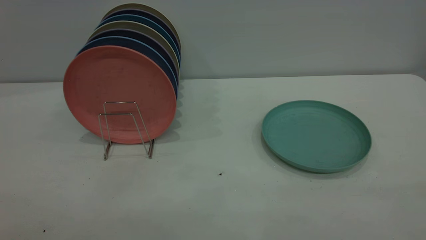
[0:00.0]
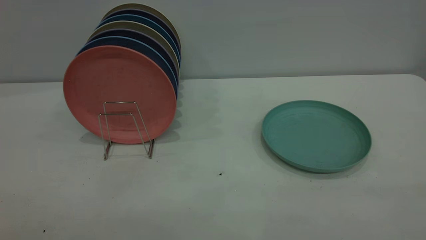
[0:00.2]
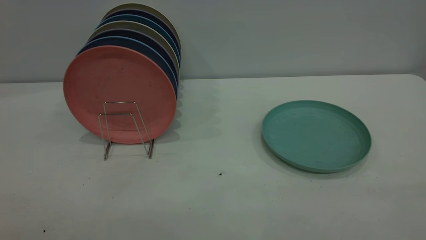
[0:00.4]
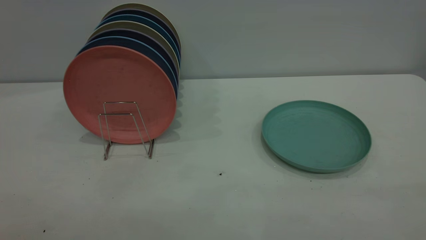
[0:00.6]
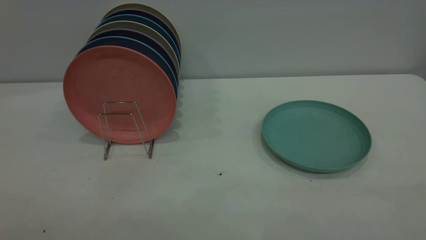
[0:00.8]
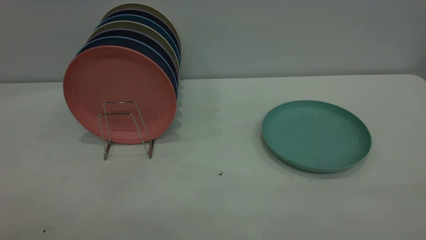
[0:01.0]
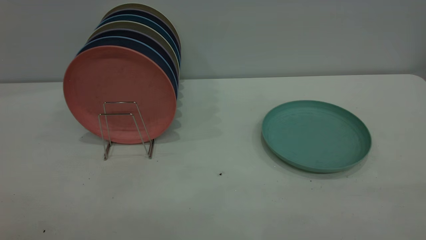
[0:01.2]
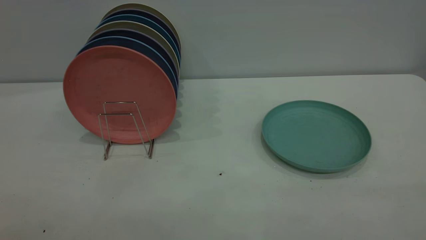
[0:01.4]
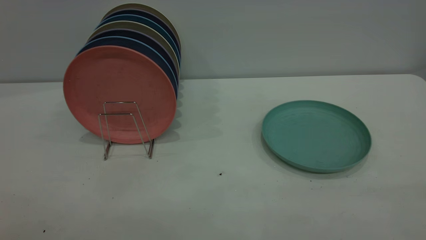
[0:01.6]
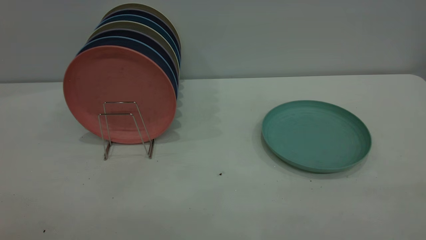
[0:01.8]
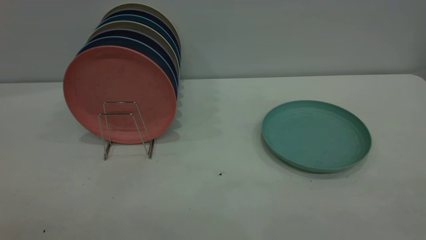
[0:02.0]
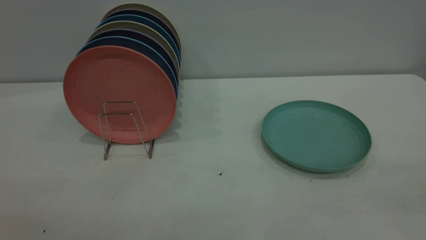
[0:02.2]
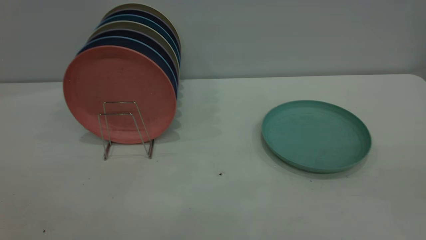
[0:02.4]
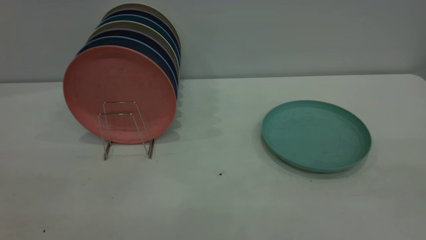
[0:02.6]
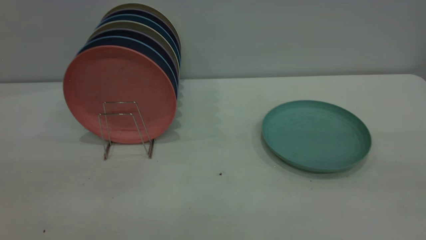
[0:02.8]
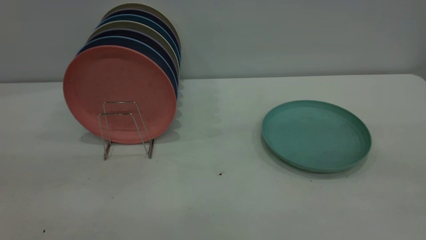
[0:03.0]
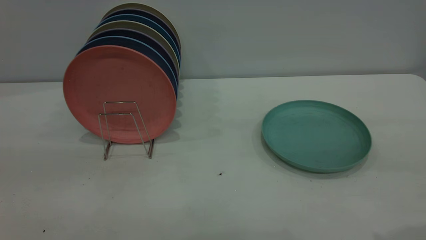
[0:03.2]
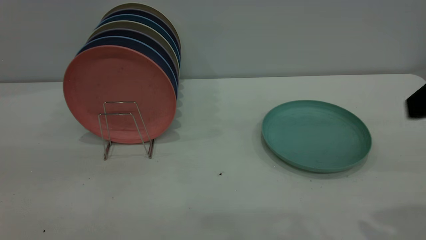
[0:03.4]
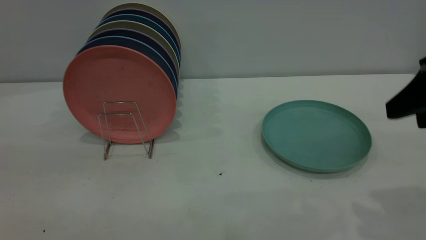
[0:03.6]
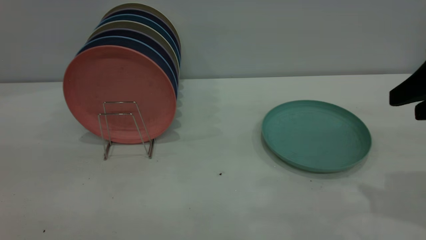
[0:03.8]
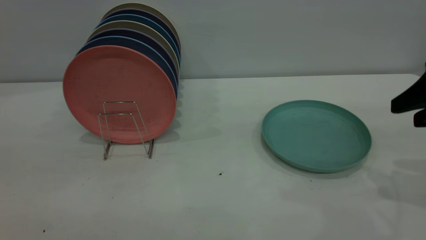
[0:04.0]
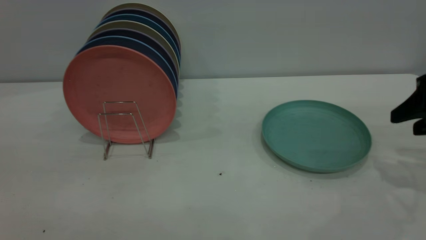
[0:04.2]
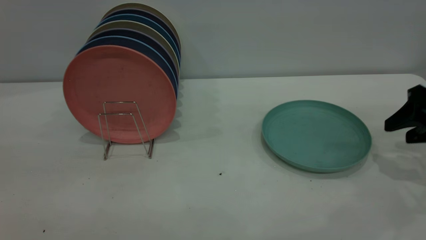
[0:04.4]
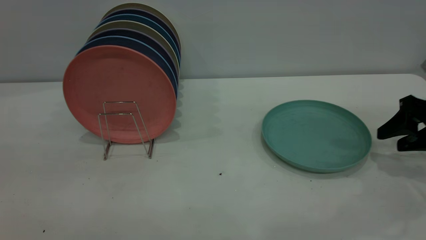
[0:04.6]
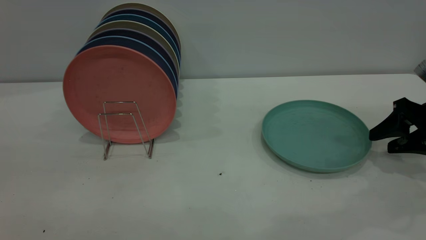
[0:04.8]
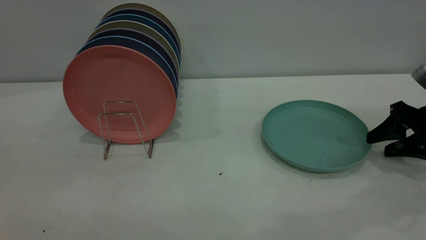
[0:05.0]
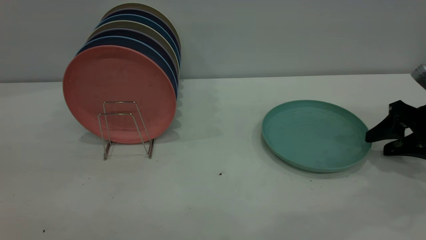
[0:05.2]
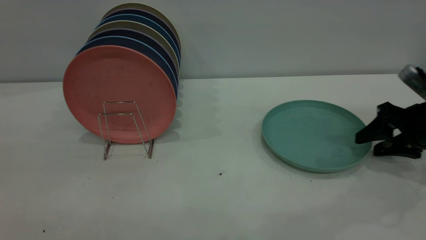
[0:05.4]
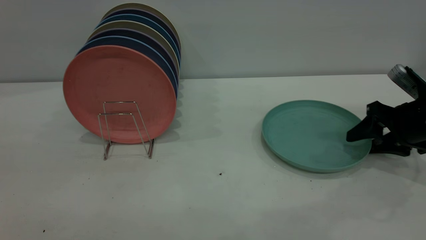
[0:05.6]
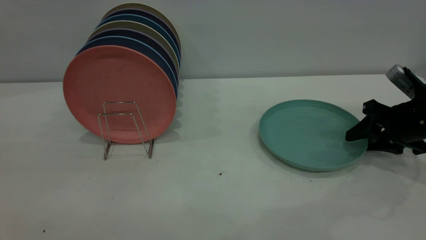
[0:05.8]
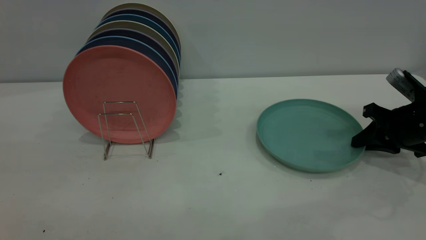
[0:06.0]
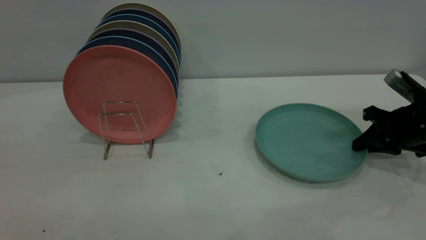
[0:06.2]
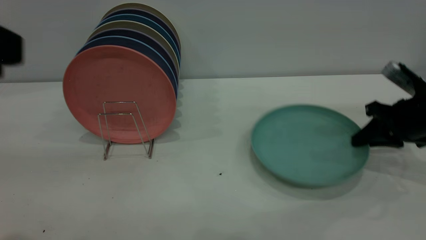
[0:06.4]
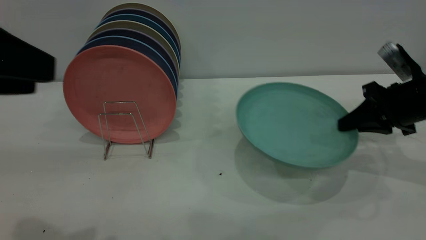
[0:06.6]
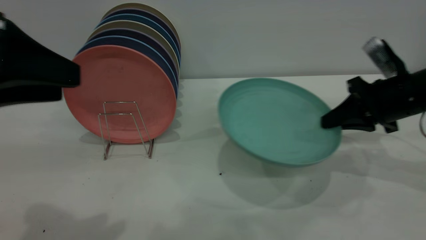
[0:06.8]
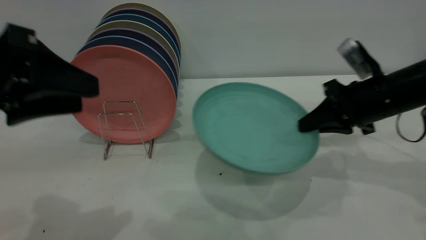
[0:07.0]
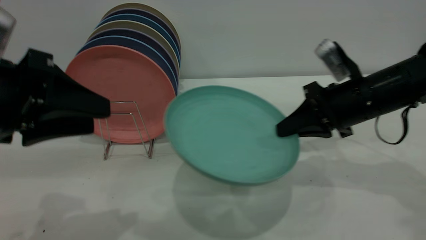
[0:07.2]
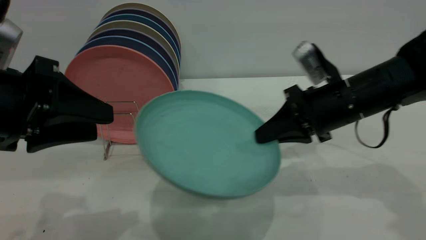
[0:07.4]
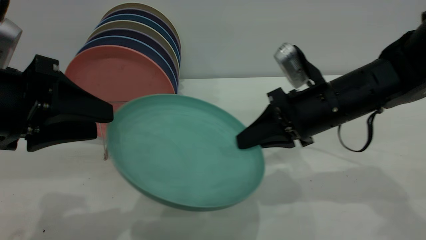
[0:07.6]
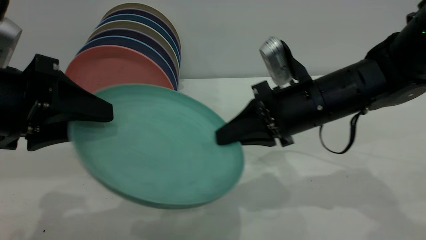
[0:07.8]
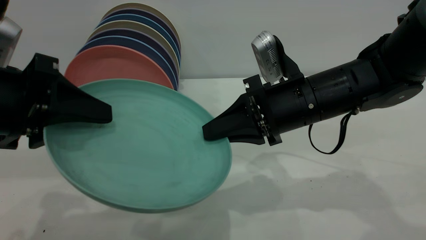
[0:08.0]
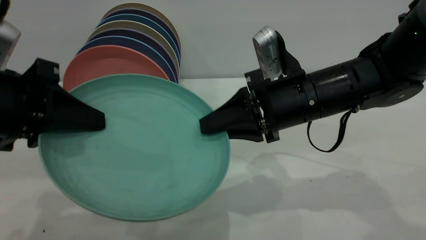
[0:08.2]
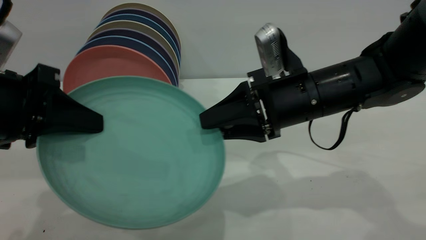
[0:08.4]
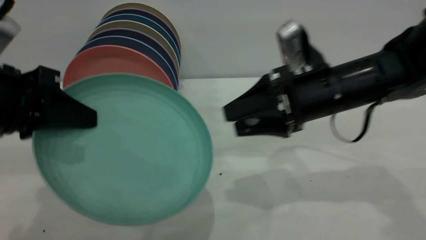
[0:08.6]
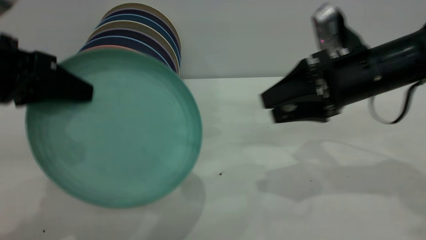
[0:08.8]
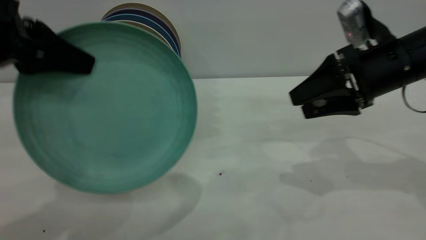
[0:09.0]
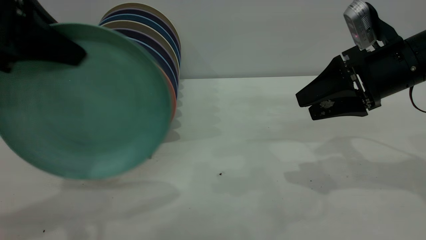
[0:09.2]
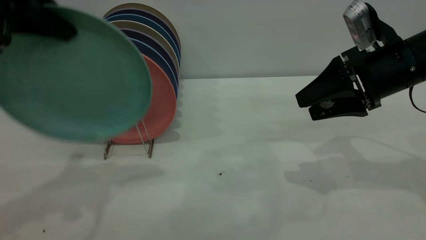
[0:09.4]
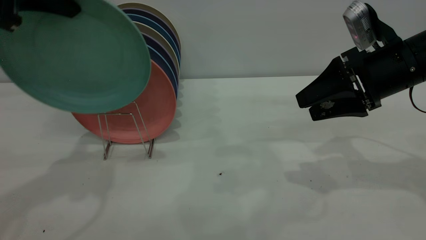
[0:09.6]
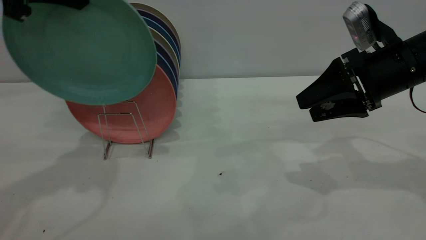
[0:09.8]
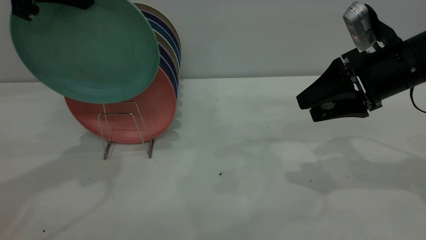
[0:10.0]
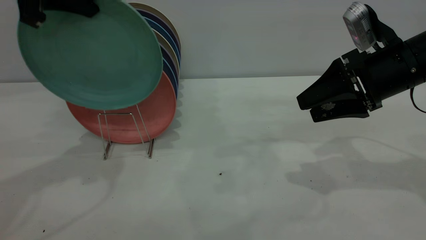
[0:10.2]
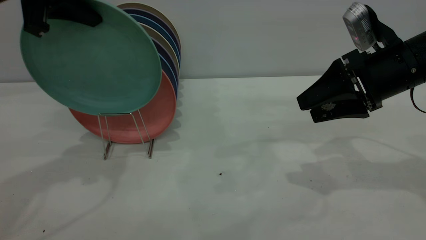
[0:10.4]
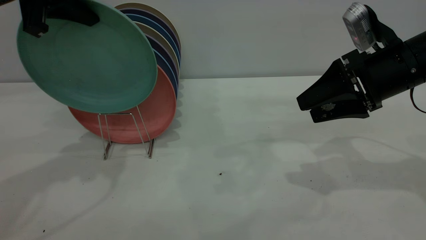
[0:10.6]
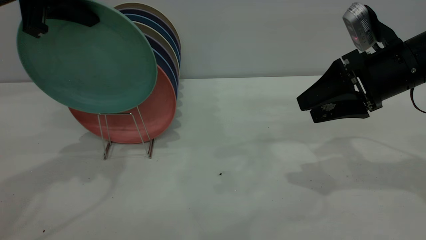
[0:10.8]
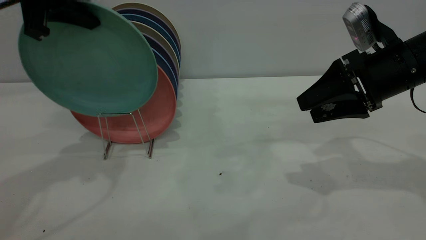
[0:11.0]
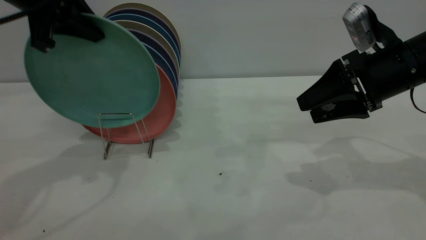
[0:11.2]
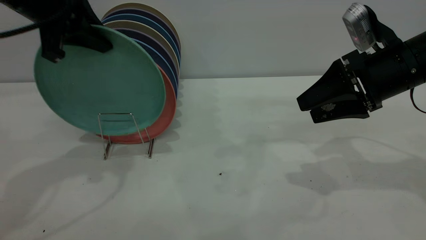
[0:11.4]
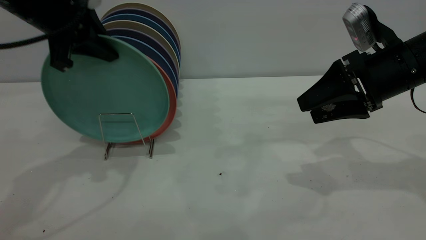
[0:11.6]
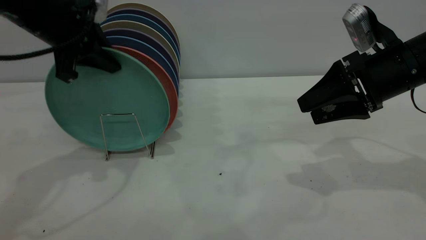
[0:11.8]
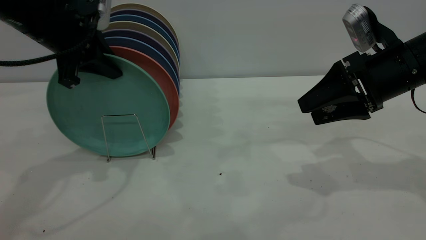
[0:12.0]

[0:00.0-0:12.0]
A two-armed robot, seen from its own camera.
Task of the whole recording: the right gripper grasp the green plate, the right gripper pass the green plate to the left gripper, and the left gripper place the green plate on the plate rack.
Step, 0:00.0 to 0:06.4: Pick up the plate with the right gripper.
Step, 0:06.6 to 0:08.4: Pass the plate from the right gripper to the left gripper.
0:00.0 to 0:01.6: The two grippers keep their place.
0:03.0 to 0:04.4: The right gripper heads downward, forward and to the right, covering some 30 cm.
0:04.4 to 0:06.0: The right gripper shifts about 5 cm downward, and closes.
0:06.0 to 0:07.6: The right gripper shifts about 20 cm to the left. Meanwhile the left gripper shifts roughly 15 cm downward and forward.
0:07.6 to 0:09.0: The right gripper travels to the right by approximately 10 cm, and opens. Meanwhile the left gripper heads upward, covering some 5 cm, and closes up.
0:09.0 to 0:10.4: The left gripper travels forward by roughly 10 cm.
0:10.4 to 0:12.0: The left gripper moves downward, roughly 10 cm.

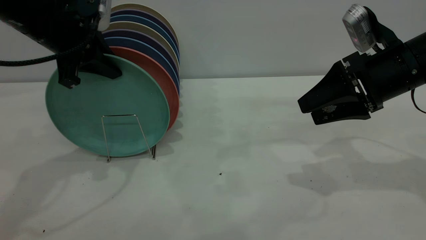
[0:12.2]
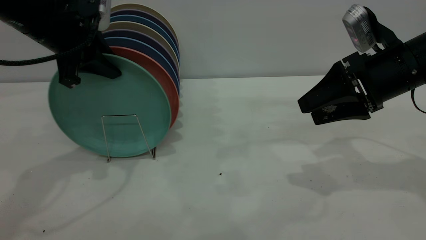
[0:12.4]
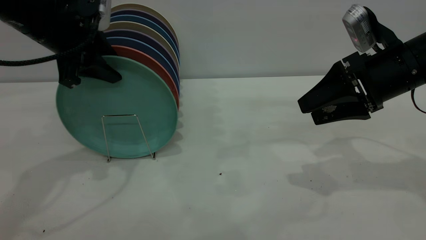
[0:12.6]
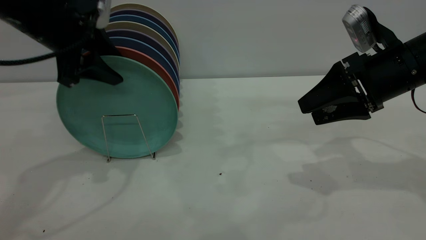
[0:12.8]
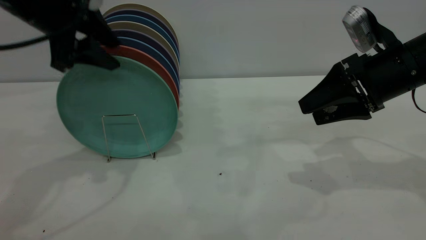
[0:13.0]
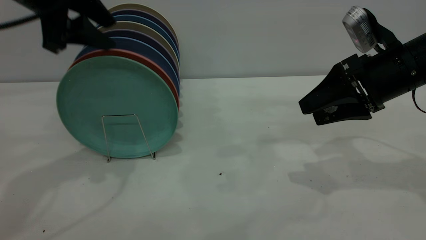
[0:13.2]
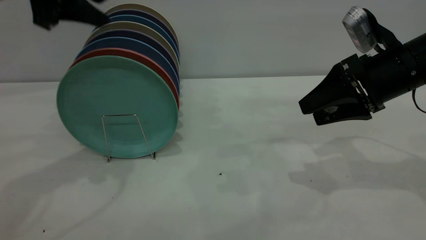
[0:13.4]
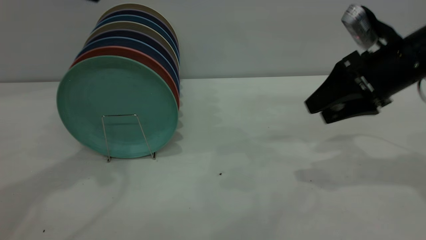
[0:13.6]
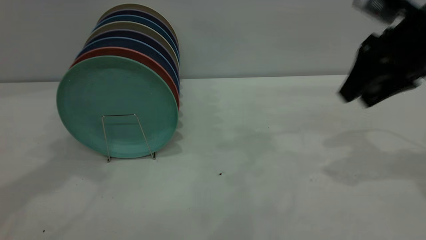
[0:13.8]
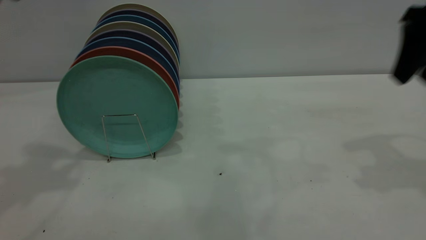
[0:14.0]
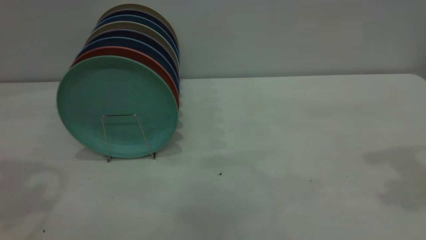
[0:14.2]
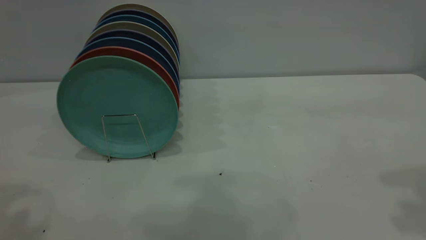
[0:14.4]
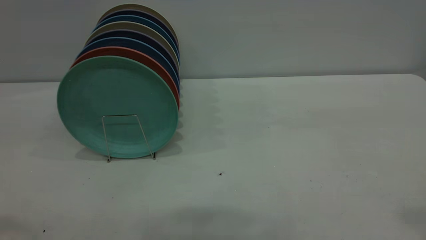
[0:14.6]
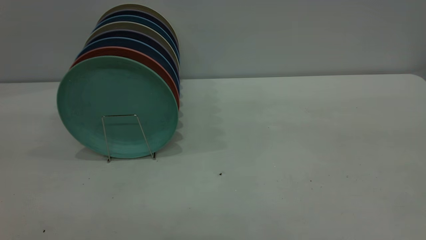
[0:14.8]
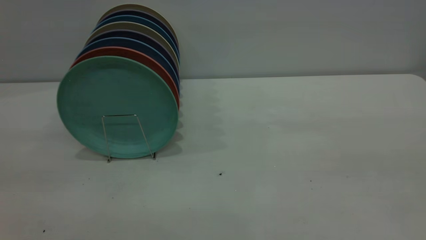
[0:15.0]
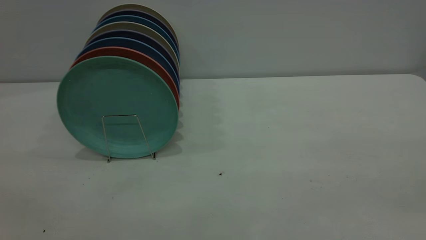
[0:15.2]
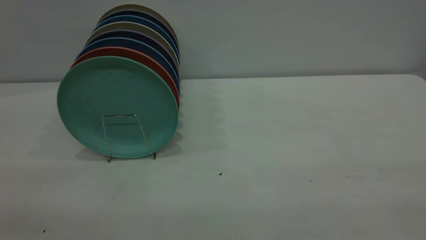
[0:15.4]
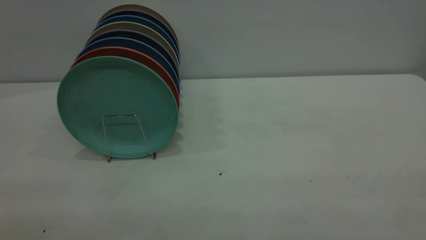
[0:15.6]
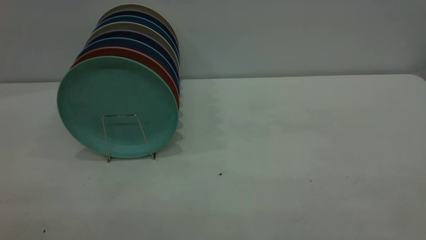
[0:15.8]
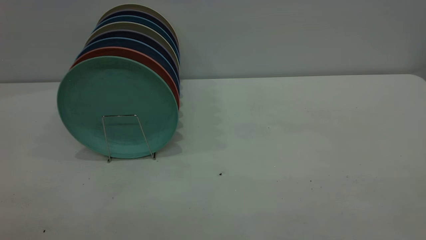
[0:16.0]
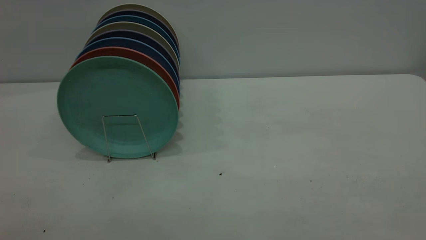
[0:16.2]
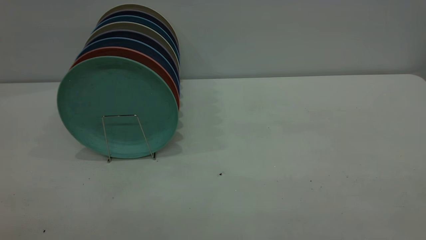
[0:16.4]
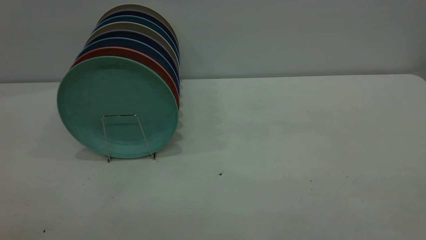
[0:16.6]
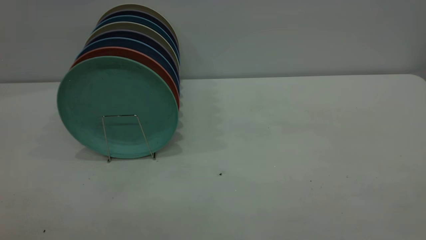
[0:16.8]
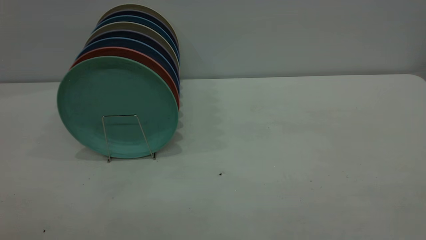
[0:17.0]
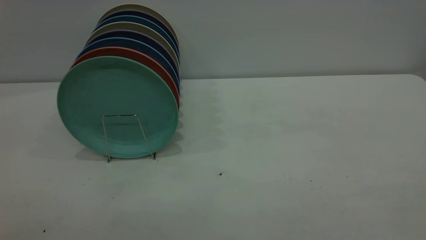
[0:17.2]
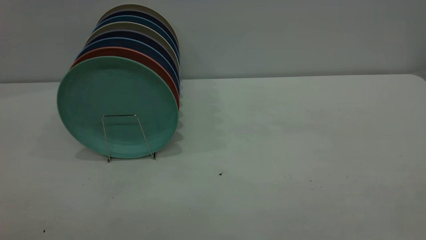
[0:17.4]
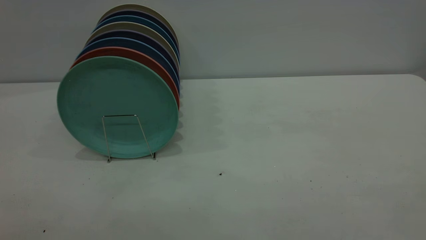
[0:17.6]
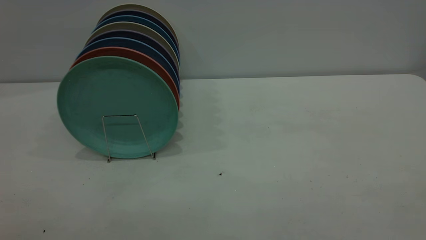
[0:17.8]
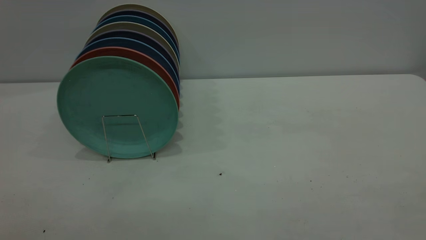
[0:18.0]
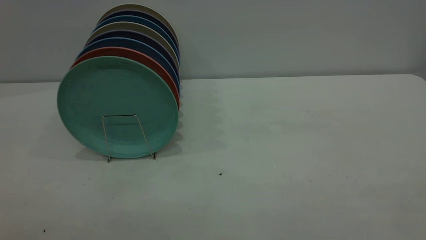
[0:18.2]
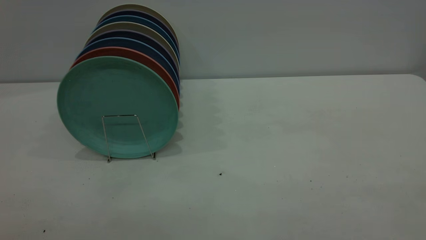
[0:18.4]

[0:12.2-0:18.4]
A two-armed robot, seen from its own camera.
Task of the whole recording: the right gripper grasp the green plate, the right gripper pass the green plate to the left gripper, and the left gripper place the green plate on the plate rack.
0:12.2 to 0:13.8: The right gripper moves upward, about 5 cm, while the left gripper travels upward by about 15 cm, and opens.
0:13.8 to 0:15.4: The right gripper moves backward, about 35 cm.
0:16.8 to 0:18.4: Both grippers stay about where they are.
